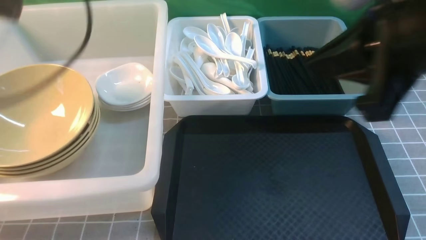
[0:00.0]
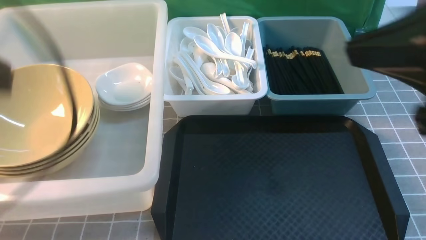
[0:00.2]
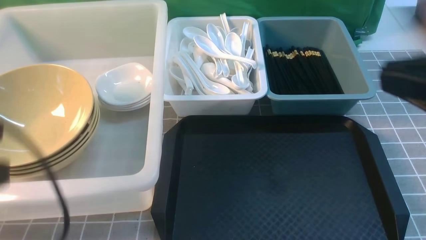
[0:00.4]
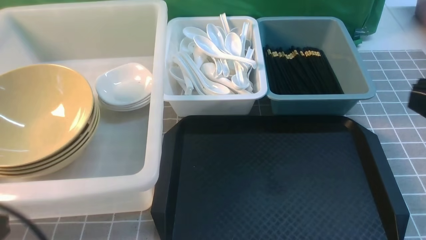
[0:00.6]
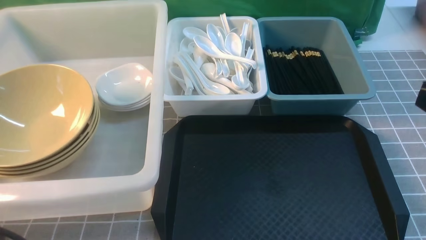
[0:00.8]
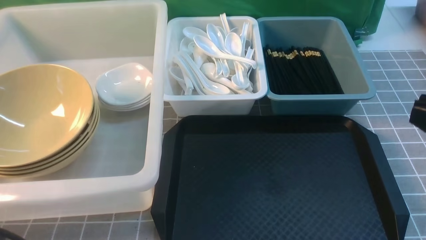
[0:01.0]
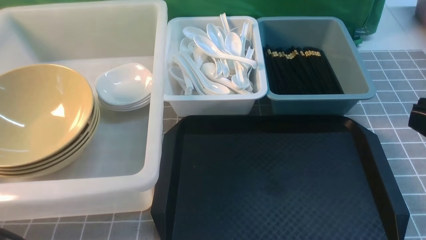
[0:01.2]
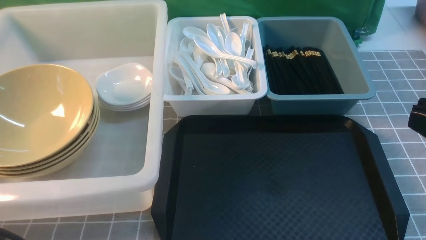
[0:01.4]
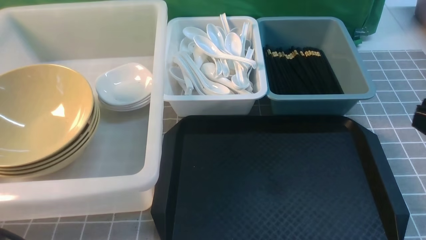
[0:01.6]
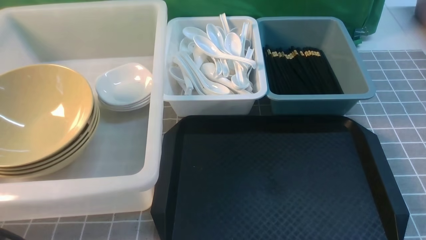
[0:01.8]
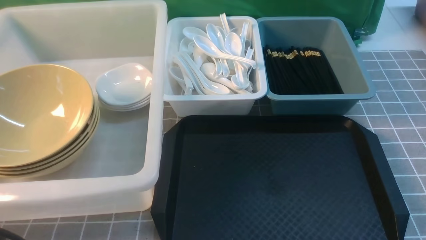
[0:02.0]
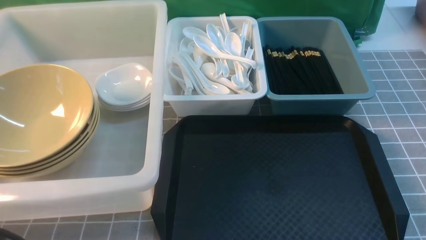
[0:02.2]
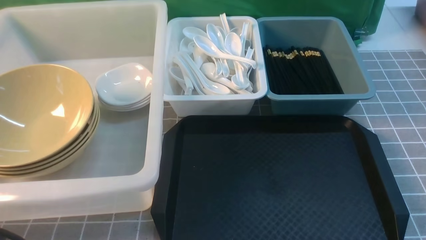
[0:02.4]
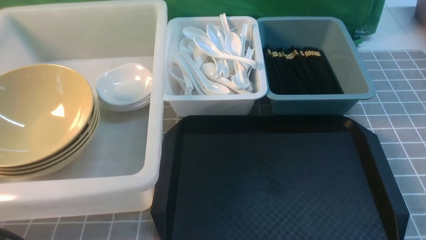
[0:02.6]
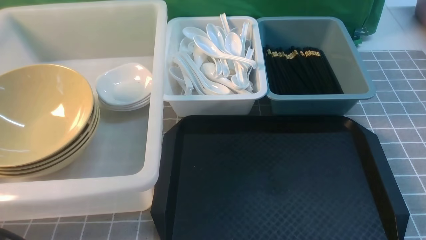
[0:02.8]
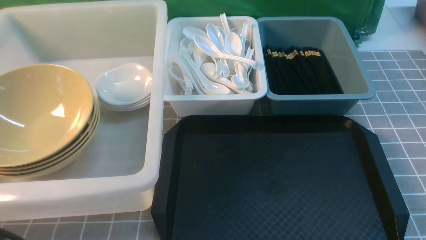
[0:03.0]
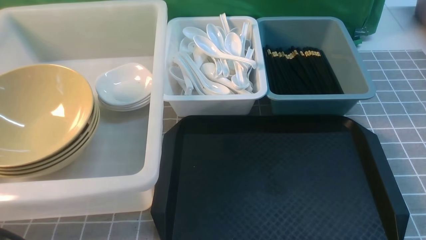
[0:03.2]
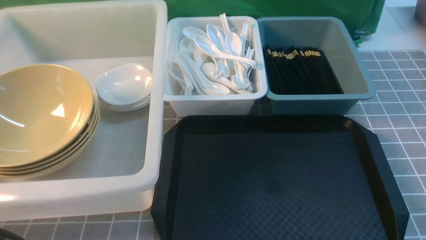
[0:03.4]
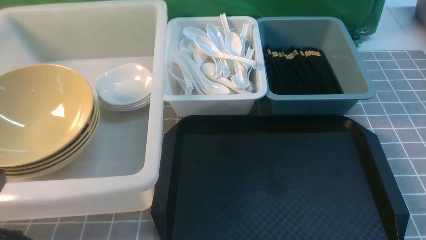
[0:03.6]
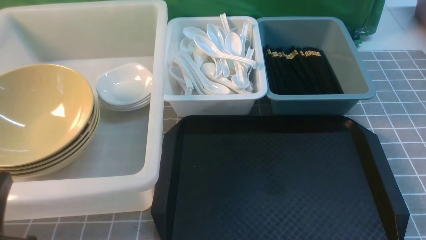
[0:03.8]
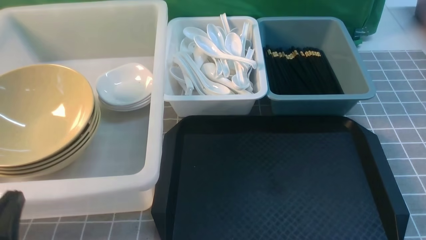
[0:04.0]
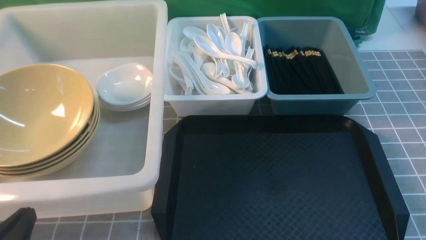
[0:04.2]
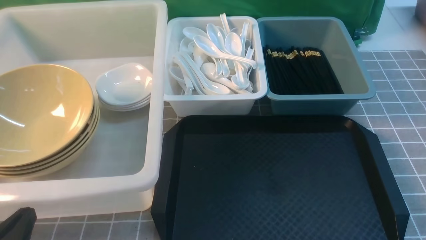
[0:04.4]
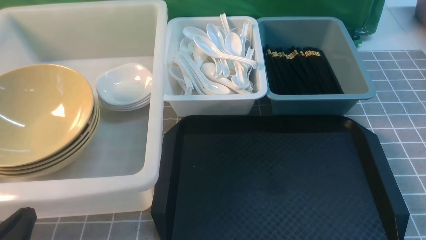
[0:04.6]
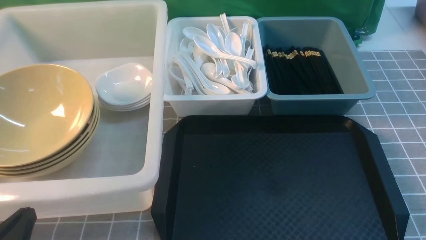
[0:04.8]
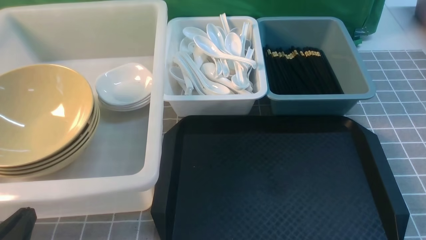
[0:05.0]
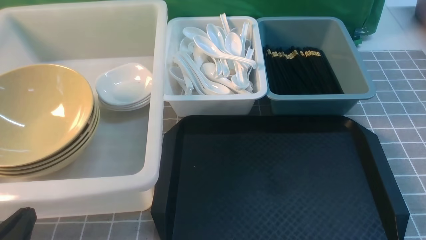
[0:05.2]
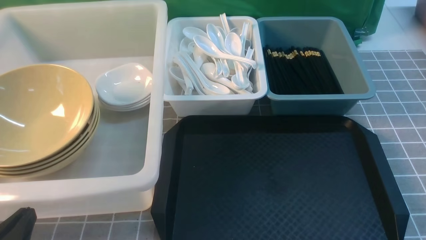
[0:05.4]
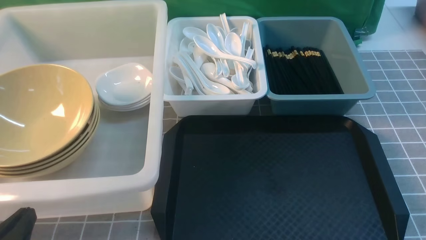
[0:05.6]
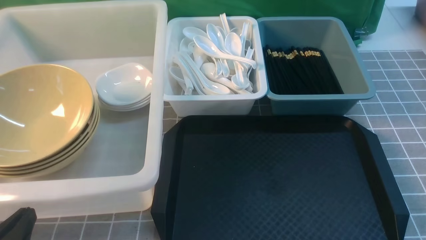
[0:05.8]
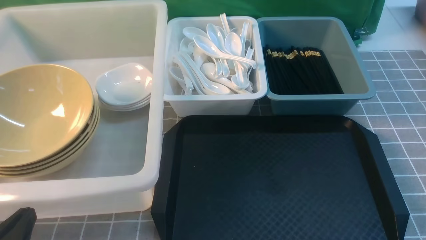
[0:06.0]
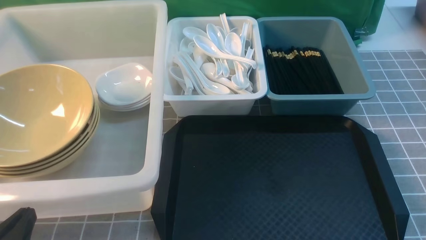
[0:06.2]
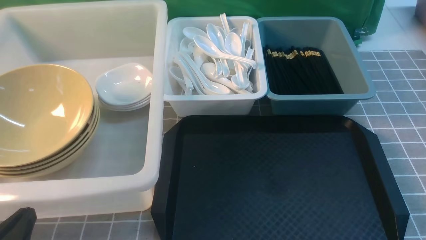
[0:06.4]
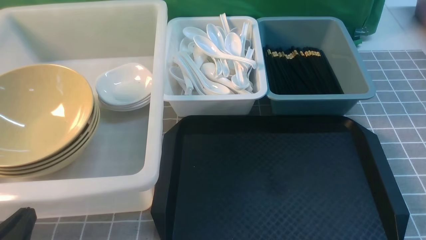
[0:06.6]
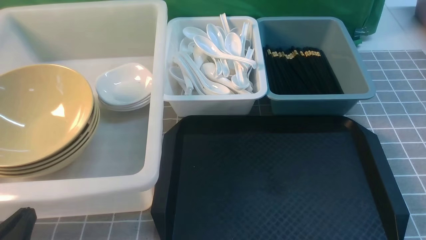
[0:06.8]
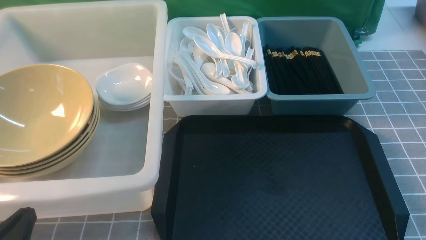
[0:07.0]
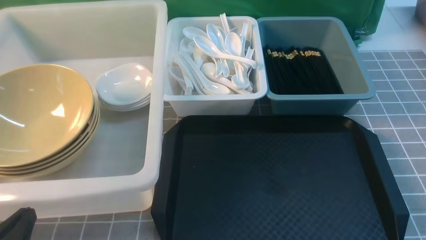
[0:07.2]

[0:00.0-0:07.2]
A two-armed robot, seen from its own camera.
Task of the whole recording: on grey table put chopsticks spoon bowls plates into blue grey white boxes.
0:00.0 to 0:01.4: The left gripper is displaced backward and downward by some 25 cm. Meanwhile the right gripper goes some 15 cm backward, to the right and downward.
0:02.8 to 0:04.4: The left gripper travels downward by about 10 cm.
0:04.4 to 0:07.2: Both grippers stay put.
